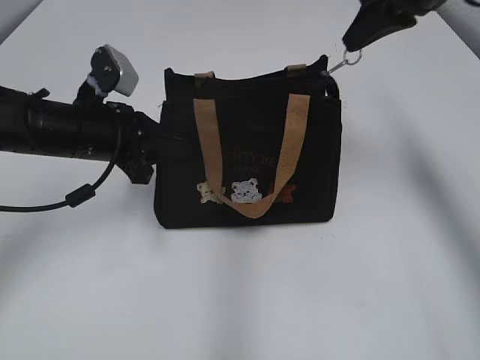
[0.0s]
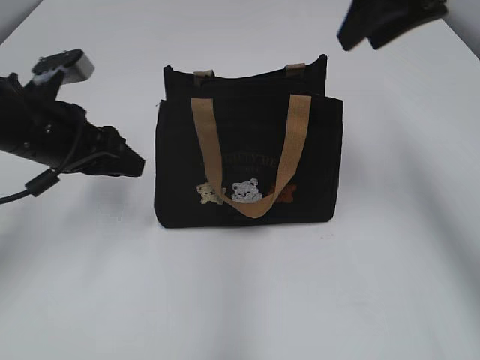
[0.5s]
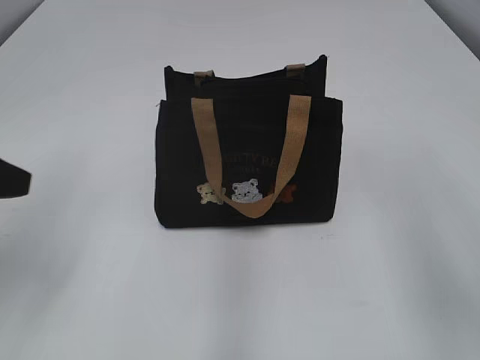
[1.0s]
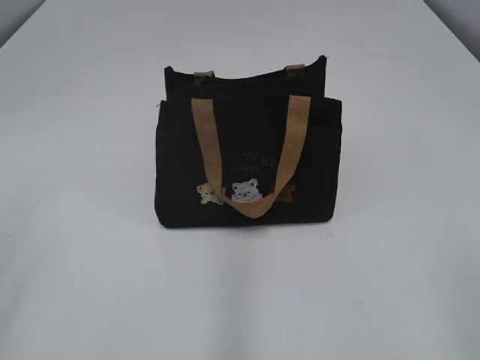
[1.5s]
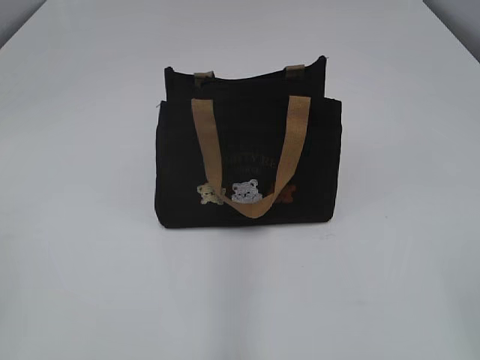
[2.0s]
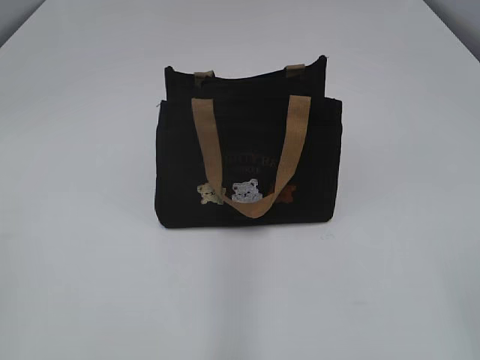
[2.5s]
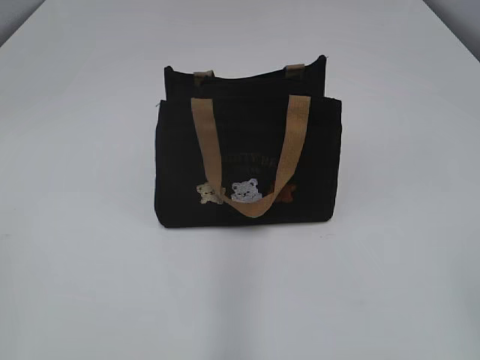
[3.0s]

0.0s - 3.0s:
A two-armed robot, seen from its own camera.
0.0s - 1.5s: The right gripper is displaced backward by about 40 cm, and opens. Meanwhile the left gripper is displaced backward, upward and to the left by about 30 cm, and opens its fingers.
